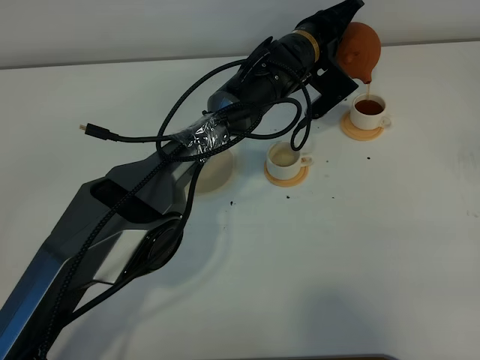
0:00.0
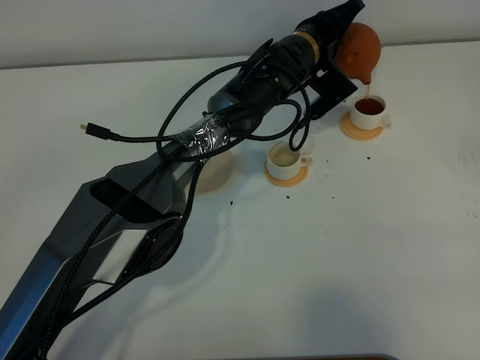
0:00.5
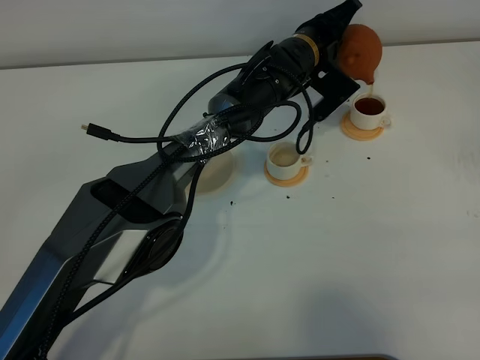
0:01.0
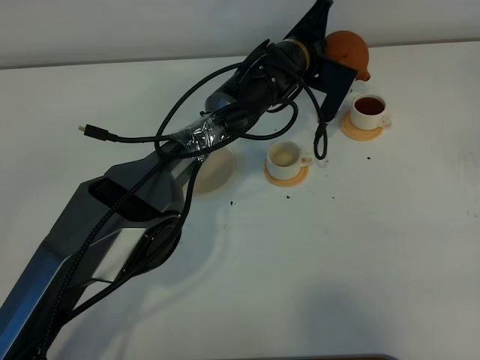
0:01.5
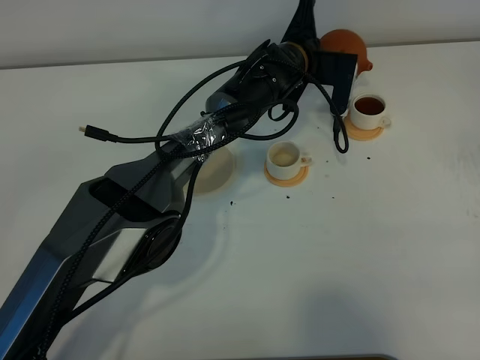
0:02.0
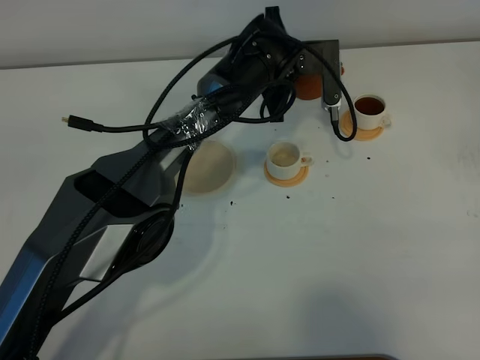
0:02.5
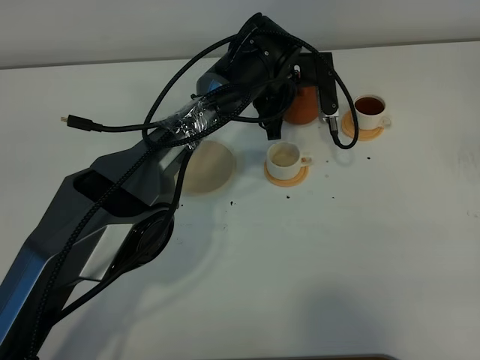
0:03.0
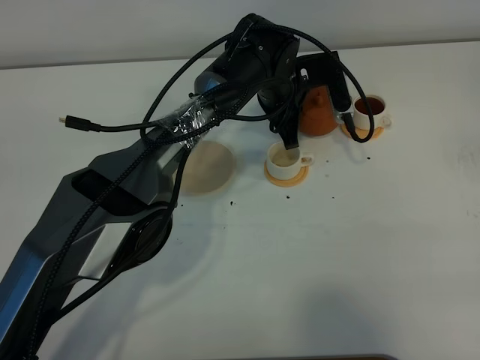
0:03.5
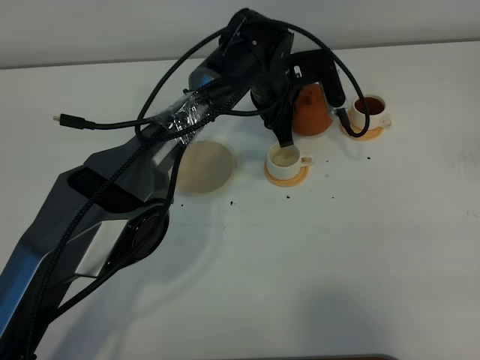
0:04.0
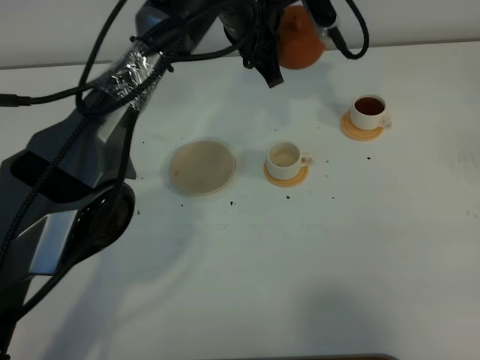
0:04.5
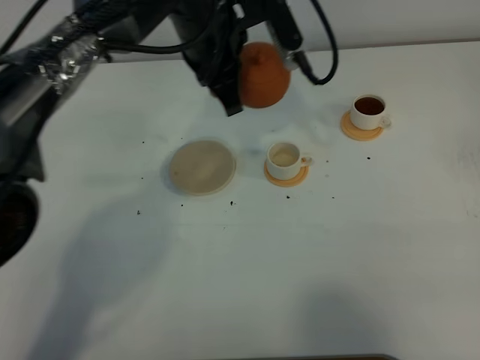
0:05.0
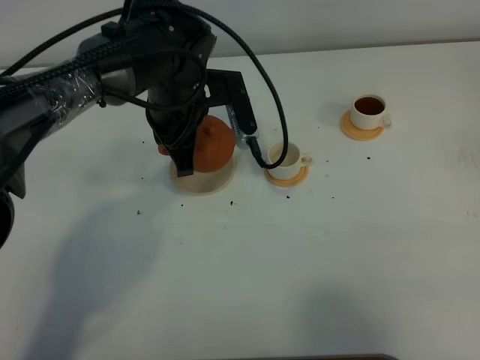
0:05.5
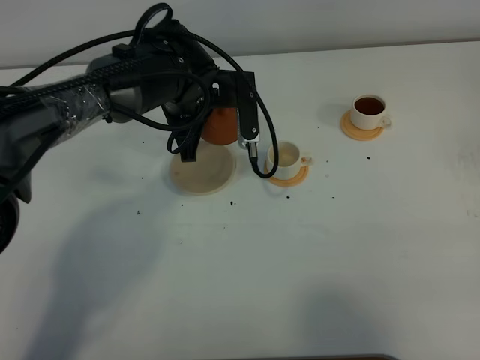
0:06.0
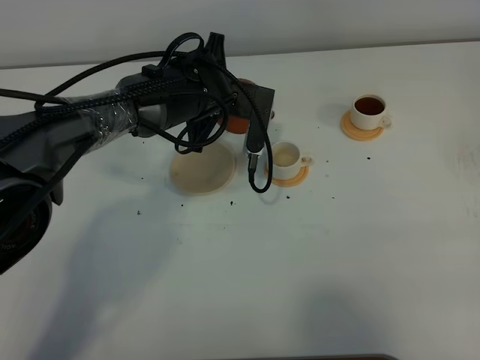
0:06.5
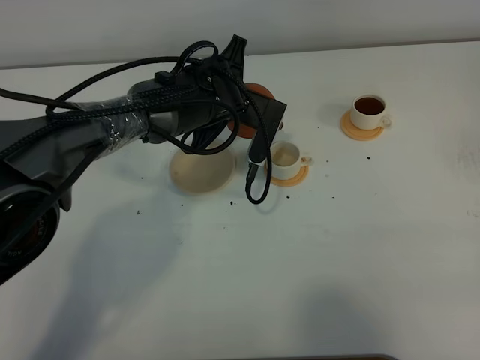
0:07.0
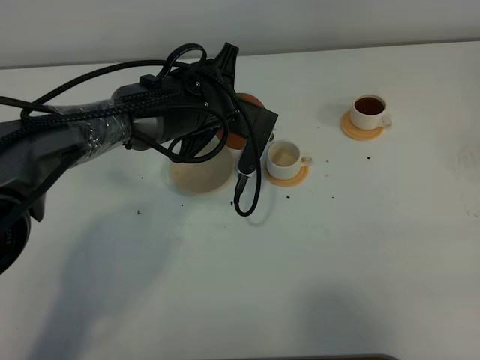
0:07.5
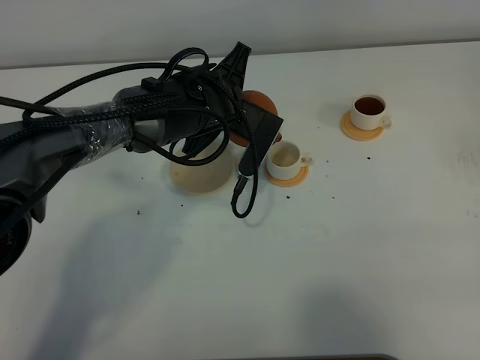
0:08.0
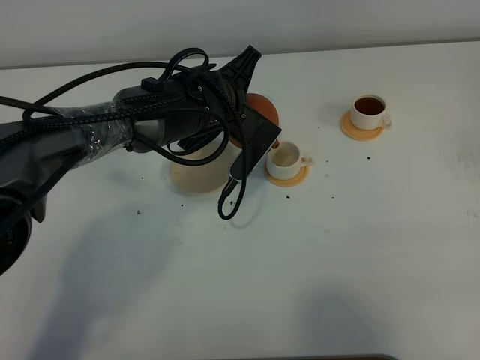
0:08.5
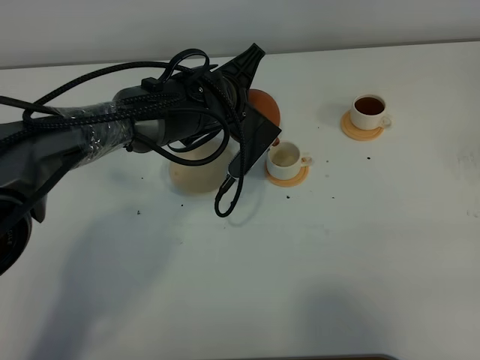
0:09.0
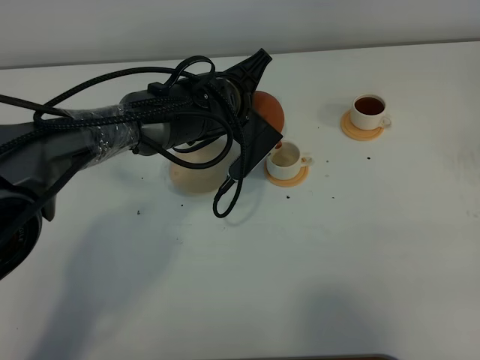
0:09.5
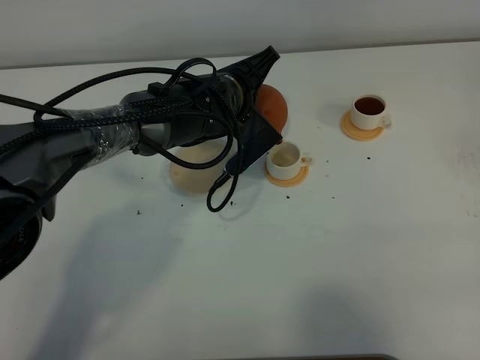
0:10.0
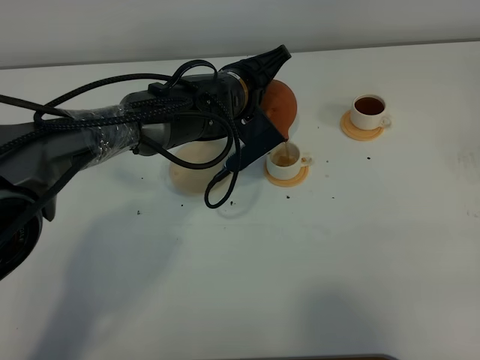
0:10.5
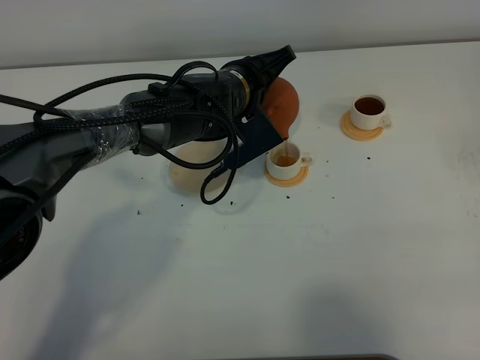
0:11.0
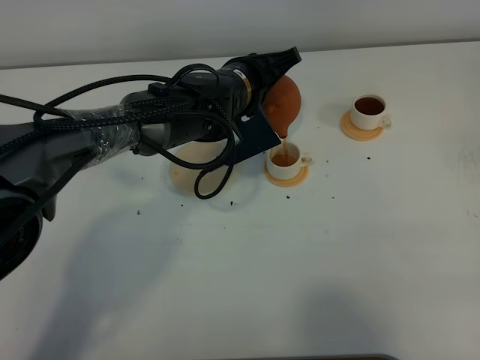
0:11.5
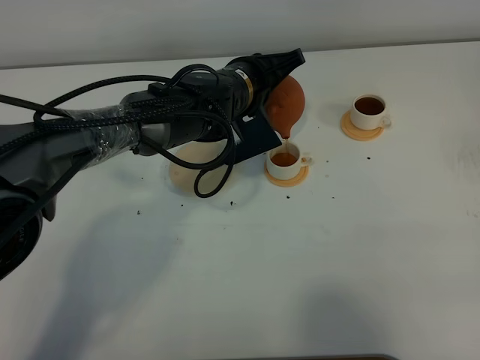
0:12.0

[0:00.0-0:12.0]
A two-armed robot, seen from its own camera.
Task of the whole recording: grasp the brown teapot and pour the tea into the two white teacups one by one, put the brown teapot back in its original place.
0:04.0 to 0:06.0: The left gripper travels to the left and backward by roughly 10 cm, and goes upward and returns, about 10 cm each way.
0:10.0 to 0:12.0: There are only small adjustments of the grippers.

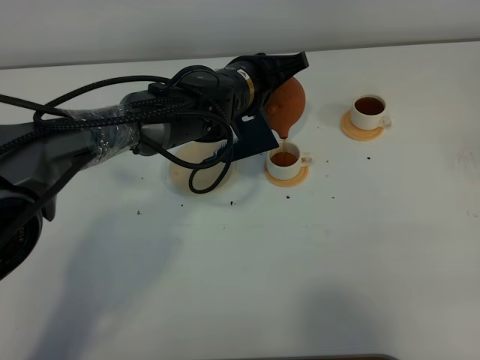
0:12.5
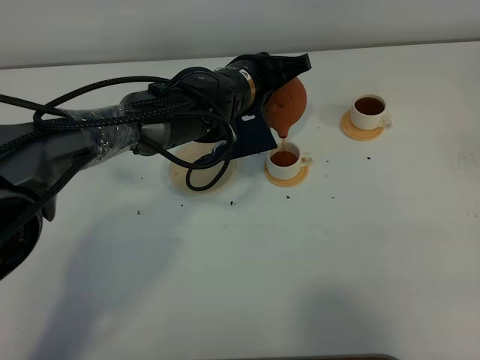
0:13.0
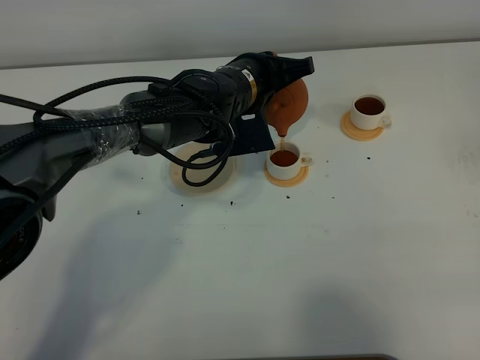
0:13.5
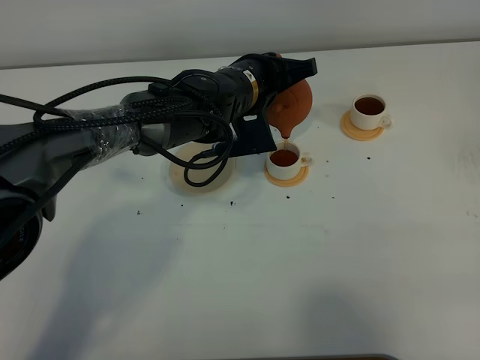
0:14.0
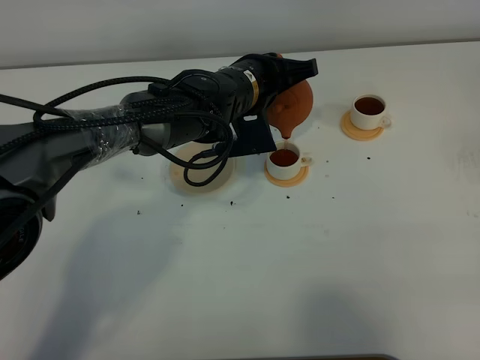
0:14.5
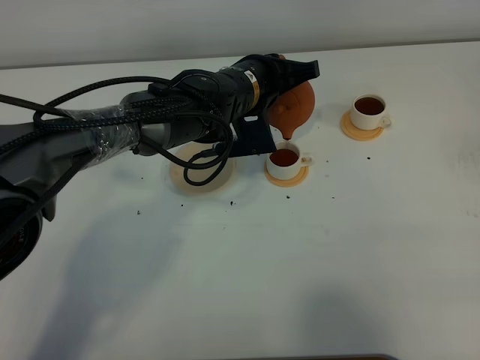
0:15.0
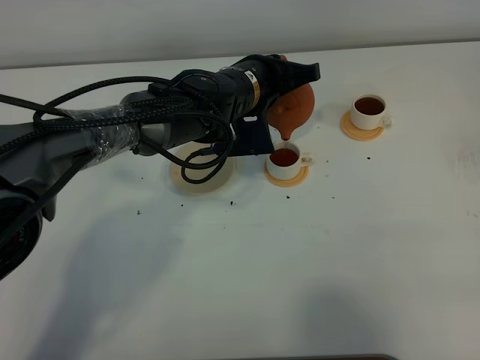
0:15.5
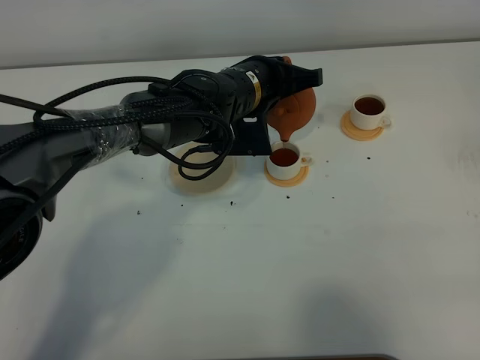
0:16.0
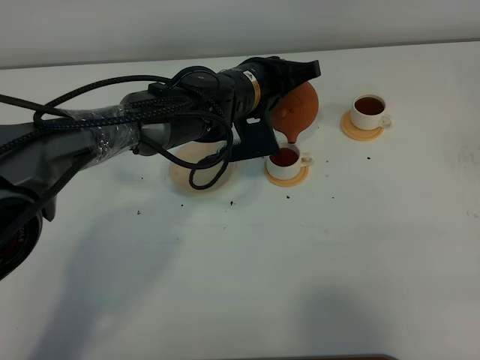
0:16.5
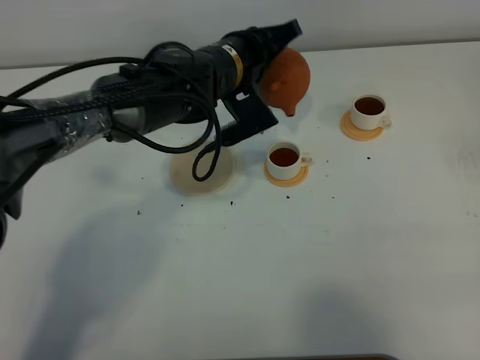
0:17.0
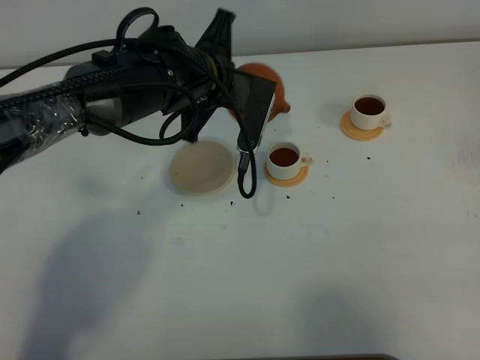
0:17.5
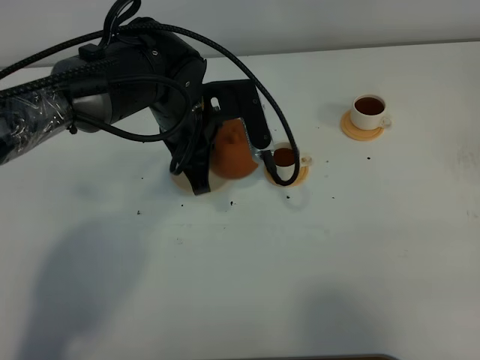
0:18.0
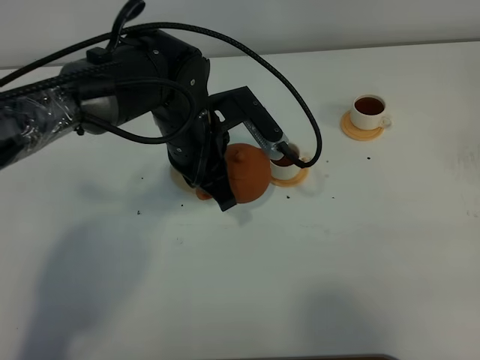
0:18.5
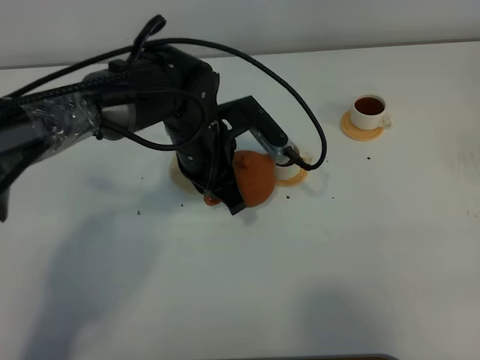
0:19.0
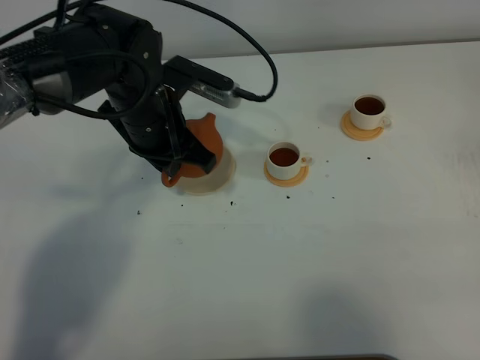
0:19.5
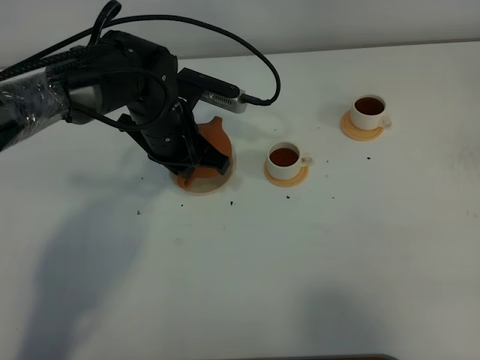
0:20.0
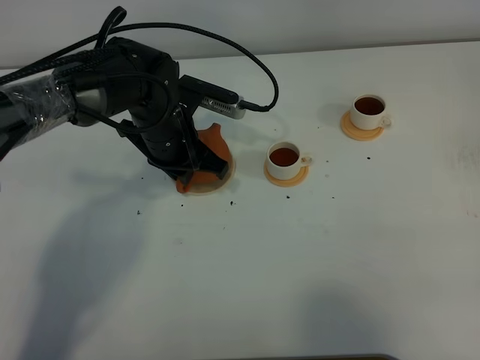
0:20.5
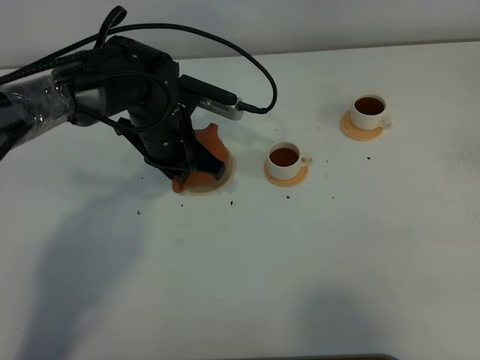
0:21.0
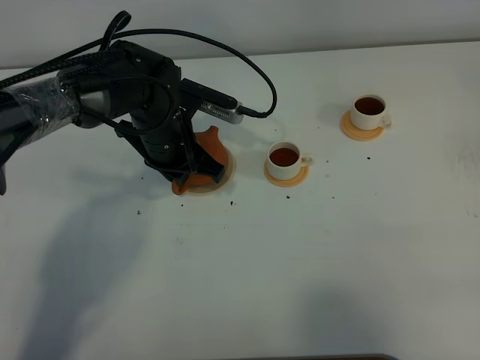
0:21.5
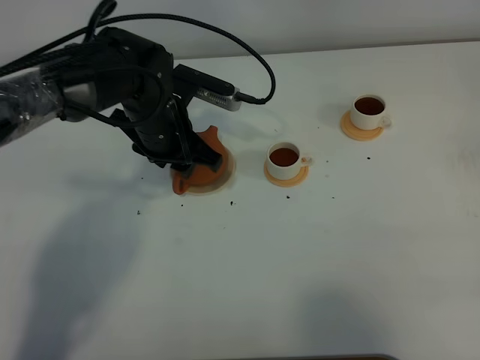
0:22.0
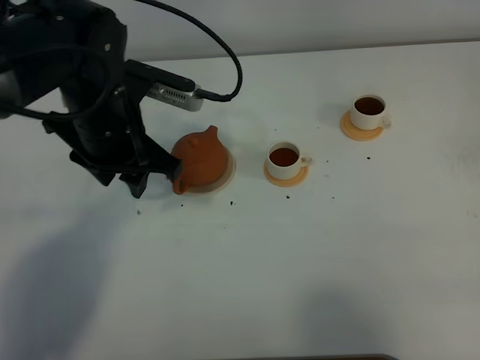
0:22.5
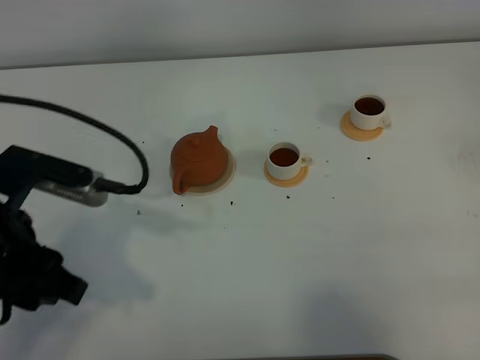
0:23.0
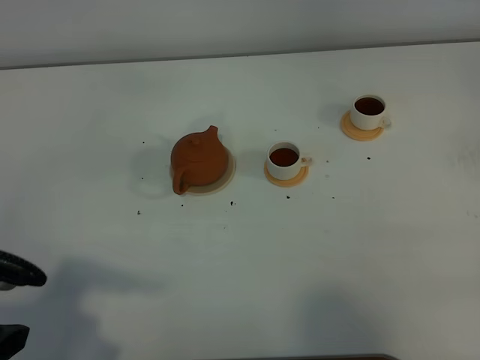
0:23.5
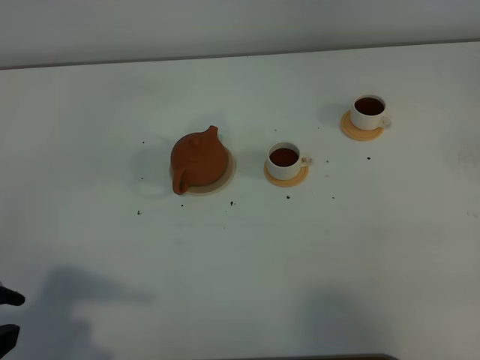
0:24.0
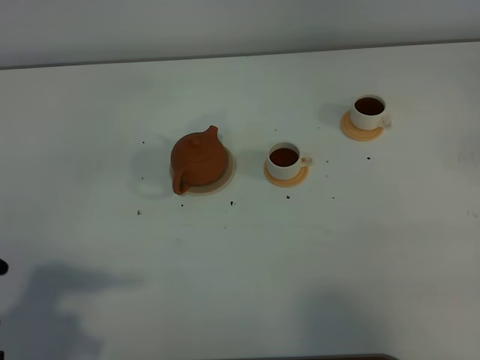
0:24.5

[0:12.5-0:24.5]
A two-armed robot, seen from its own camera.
Task of the whole recording: grasp the brown teapot and pour the tea into the two white teacups one by one, put the brown teapot back in its original place.
Step, 0:12.5 to 0:16.5: Pour tea into the teacup with the left gripper.
0:12.5 to 0:16.5: The grippers move only a little.
0:16.5 to 0:18.5: The left gripper heads to the left and backward, covering approximately 10 cm.
0:18.5 to 0:20.5: The left gripper ends up approximately 5 cm from where it was.
0:20.5 to 0:22.5: The left gripper heads upward and backward, covering some 10 cm, and opens.
0:22.5 to 0:24.5: The left gripper goes approximately 25 cm backward and to the left.
